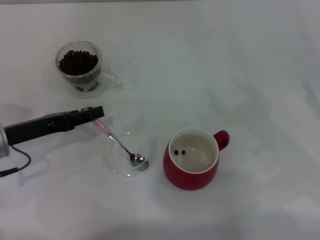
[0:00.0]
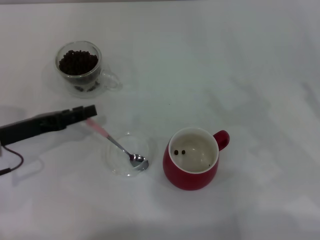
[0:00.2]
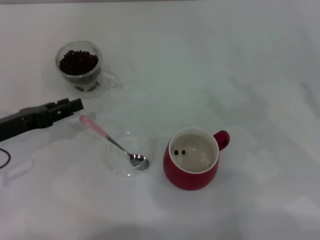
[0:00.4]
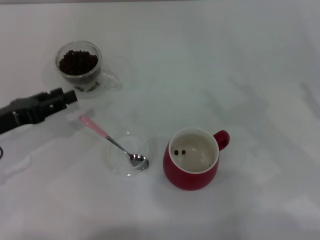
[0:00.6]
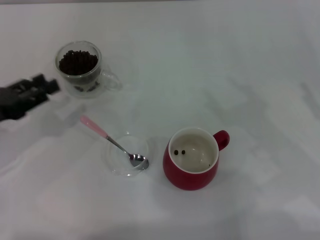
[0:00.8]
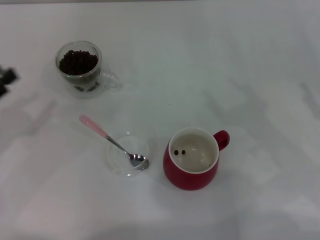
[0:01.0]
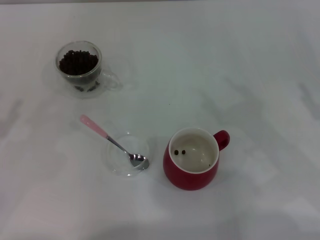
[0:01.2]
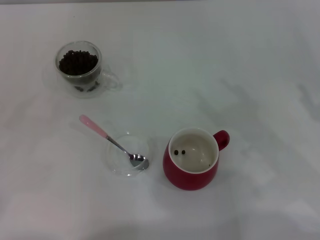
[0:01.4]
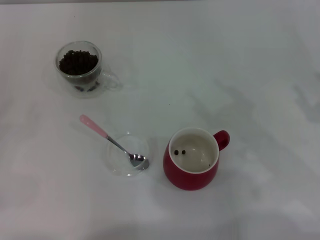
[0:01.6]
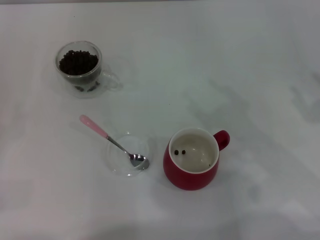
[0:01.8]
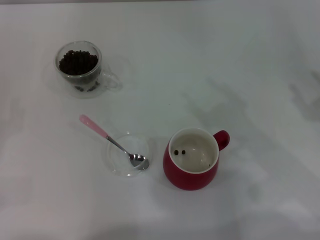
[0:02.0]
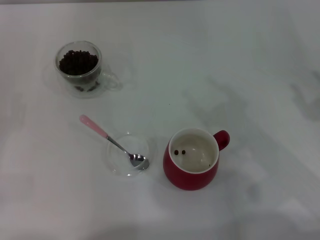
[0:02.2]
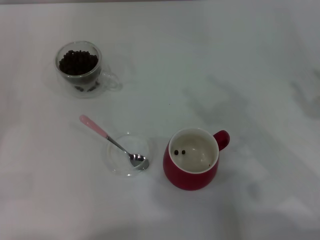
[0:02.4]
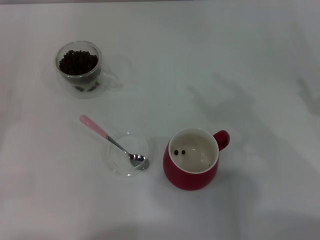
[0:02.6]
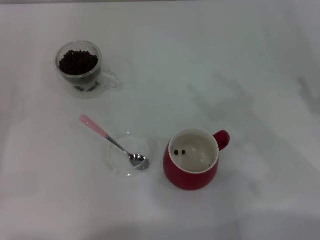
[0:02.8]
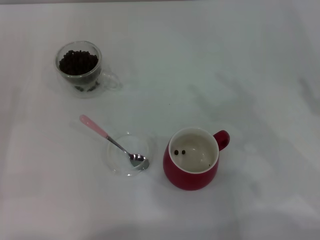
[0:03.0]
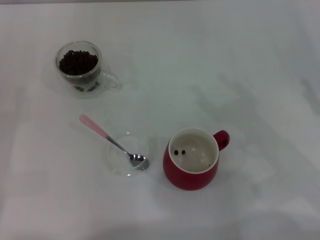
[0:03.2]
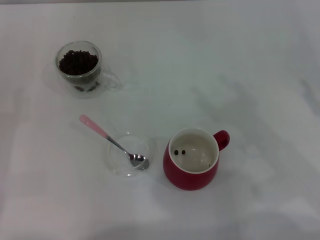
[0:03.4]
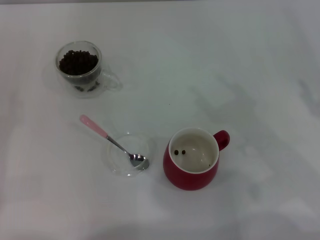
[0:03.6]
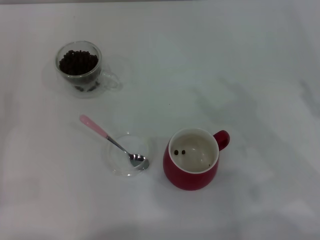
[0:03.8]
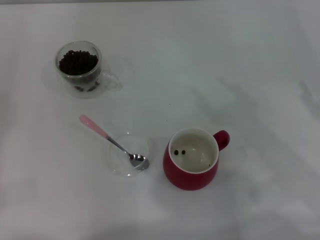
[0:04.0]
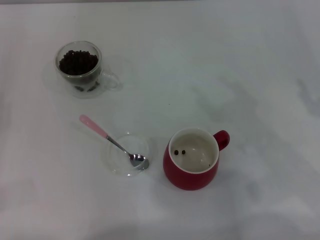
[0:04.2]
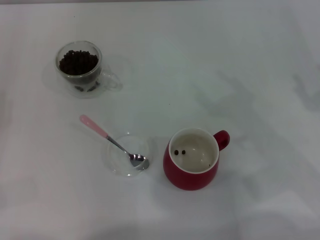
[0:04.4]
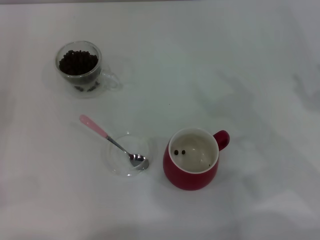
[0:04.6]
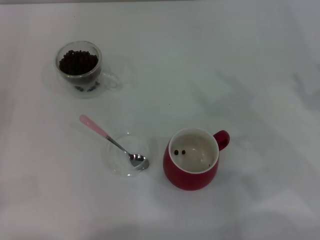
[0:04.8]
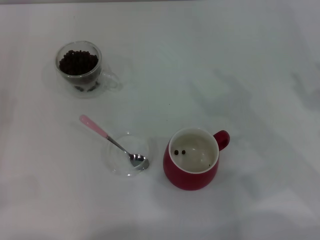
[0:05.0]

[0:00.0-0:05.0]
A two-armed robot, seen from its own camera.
Task of the whole recording: Use a pink spoon to take out the coffee beans from the glass and pour them into the red cup.
0:00.0 to 0:01.6: The left gripper travels to the left and backward by roughly 20 cm.
